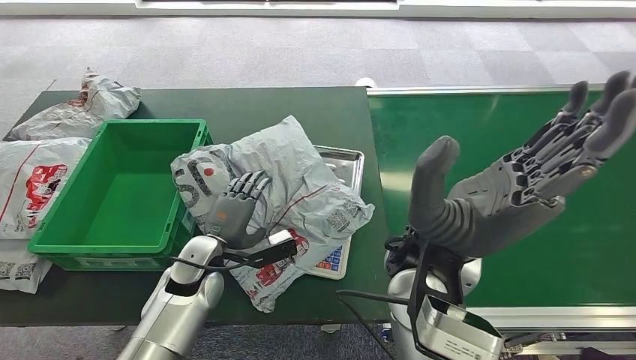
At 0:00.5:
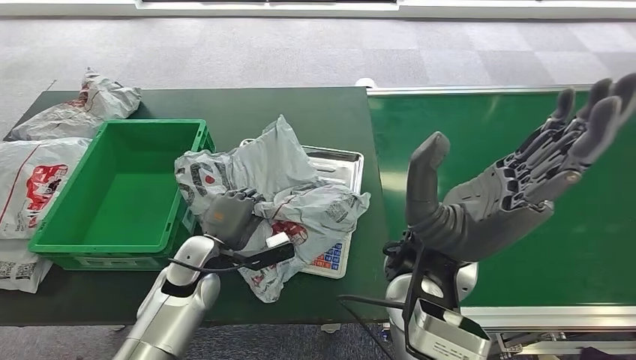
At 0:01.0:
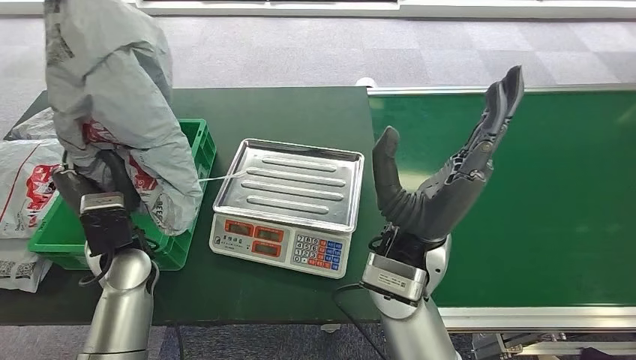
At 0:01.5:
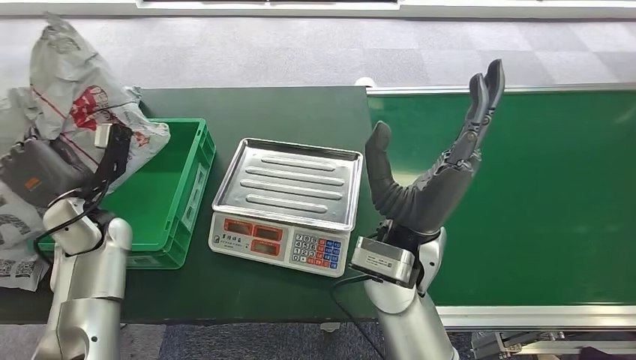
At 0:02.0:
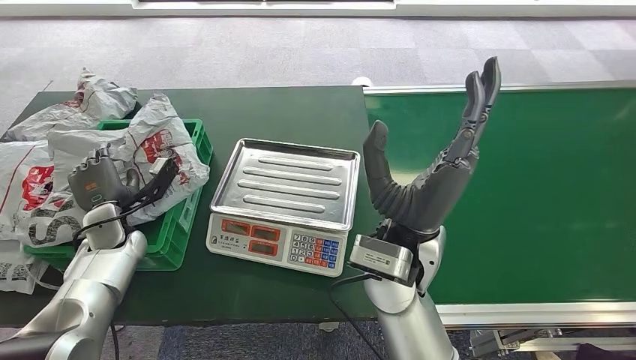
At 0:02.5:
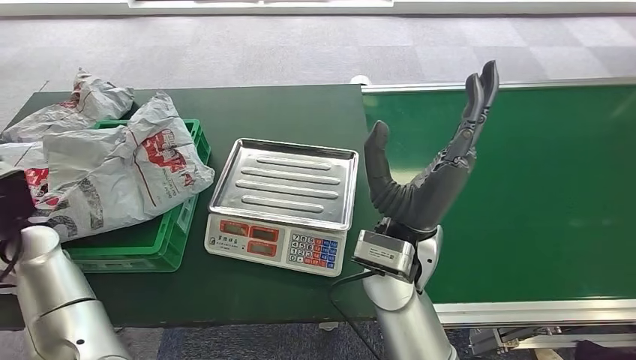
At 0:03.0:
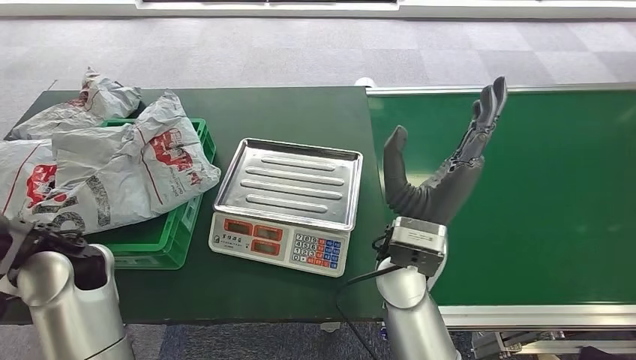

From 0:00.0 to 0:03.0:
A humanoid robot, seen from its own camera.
Step, from 0:00.5 to 0:01.0: Pick up the package from the inbound machine.
Step, from 0:01.5 to 0:03.0: Place the package into the parcel locker.
